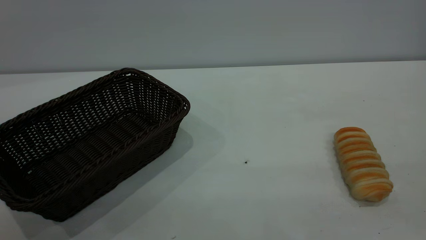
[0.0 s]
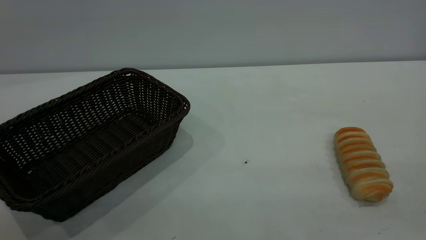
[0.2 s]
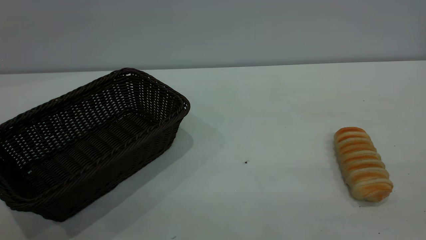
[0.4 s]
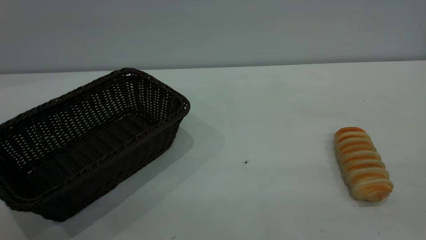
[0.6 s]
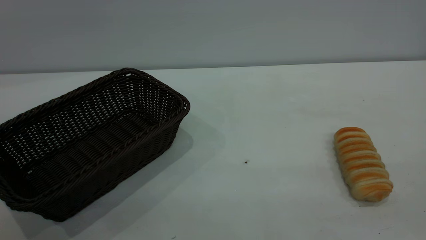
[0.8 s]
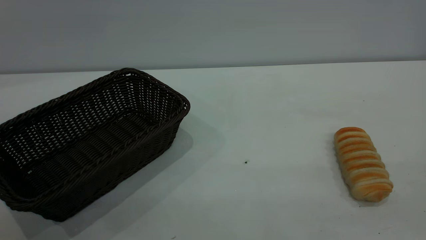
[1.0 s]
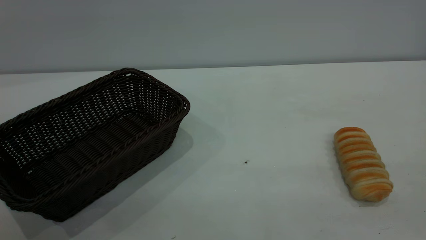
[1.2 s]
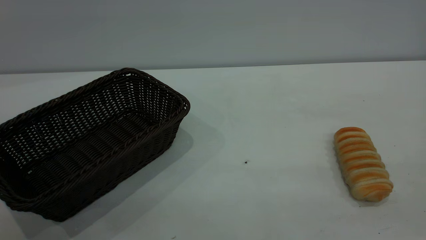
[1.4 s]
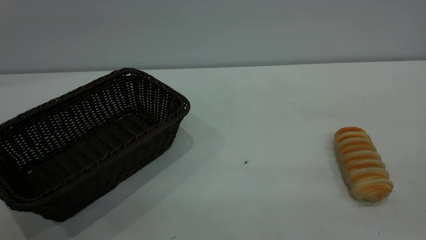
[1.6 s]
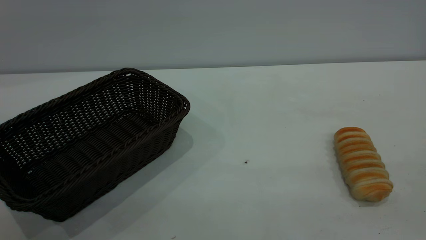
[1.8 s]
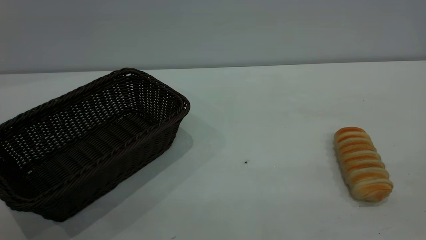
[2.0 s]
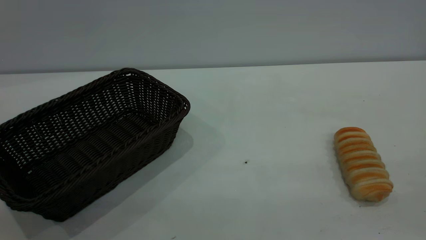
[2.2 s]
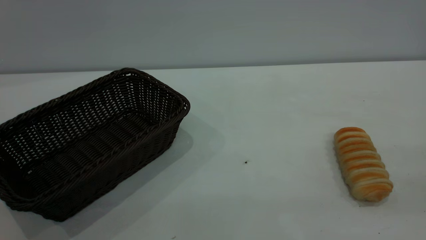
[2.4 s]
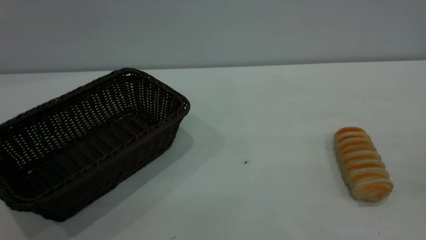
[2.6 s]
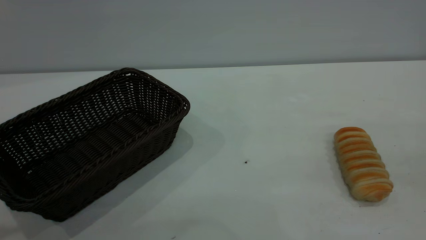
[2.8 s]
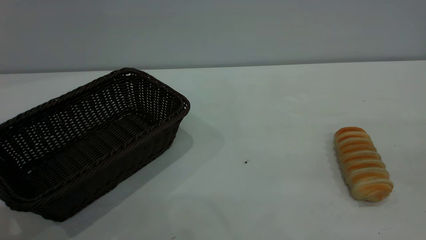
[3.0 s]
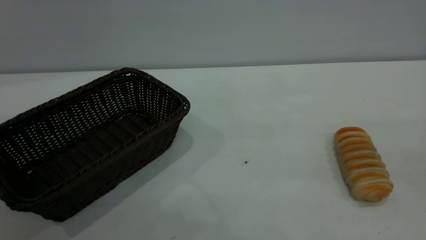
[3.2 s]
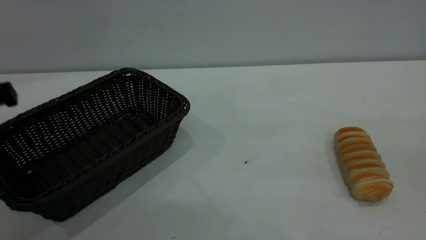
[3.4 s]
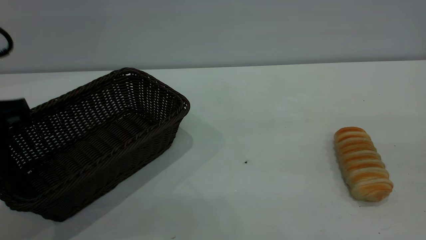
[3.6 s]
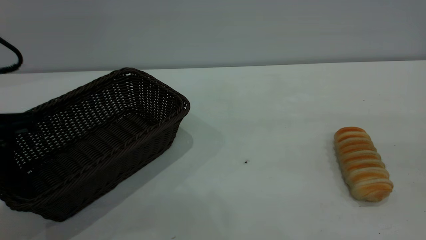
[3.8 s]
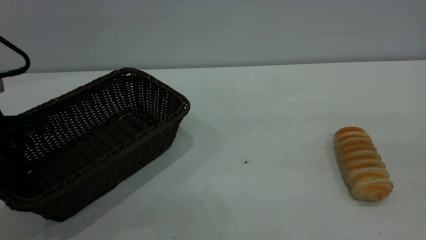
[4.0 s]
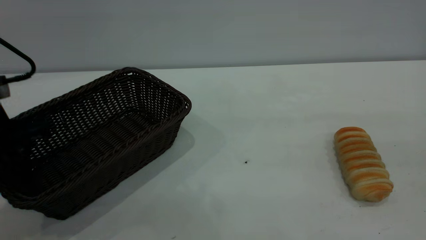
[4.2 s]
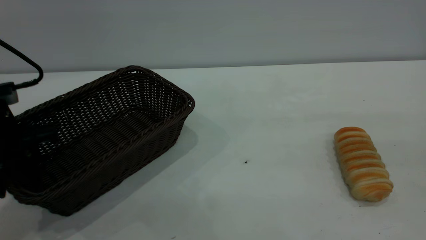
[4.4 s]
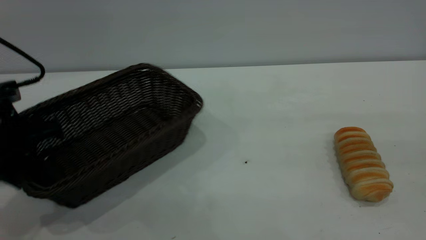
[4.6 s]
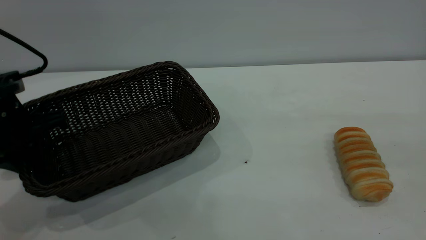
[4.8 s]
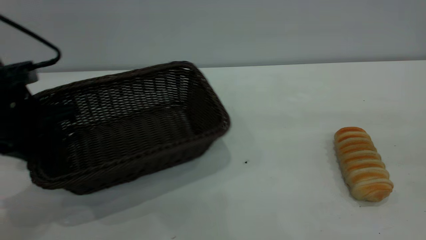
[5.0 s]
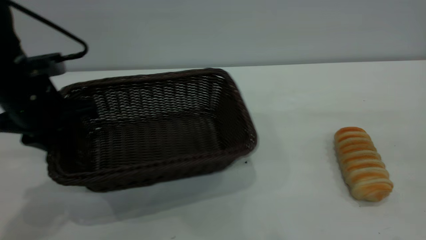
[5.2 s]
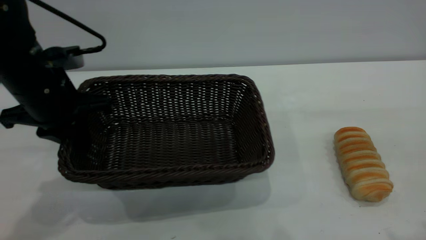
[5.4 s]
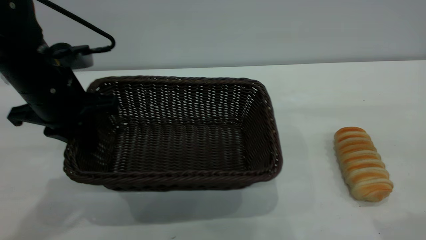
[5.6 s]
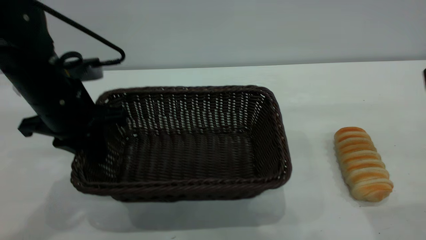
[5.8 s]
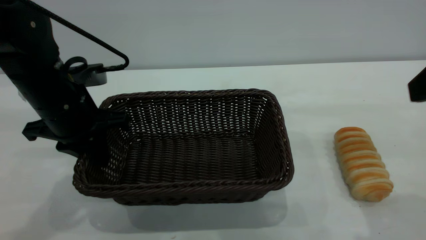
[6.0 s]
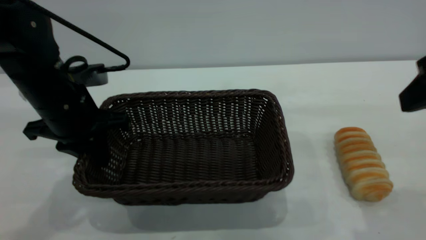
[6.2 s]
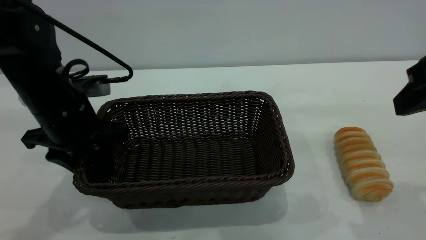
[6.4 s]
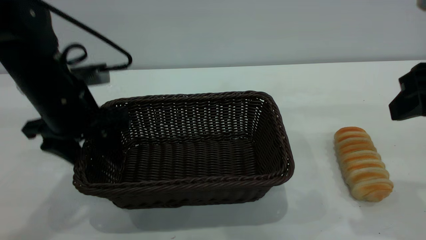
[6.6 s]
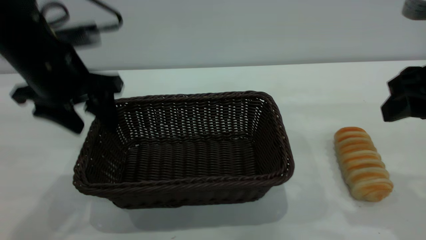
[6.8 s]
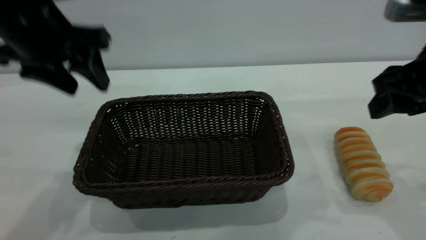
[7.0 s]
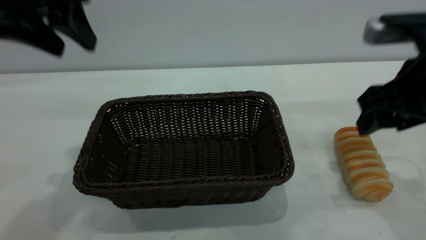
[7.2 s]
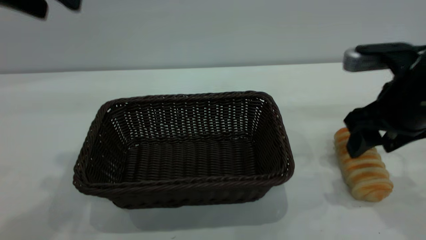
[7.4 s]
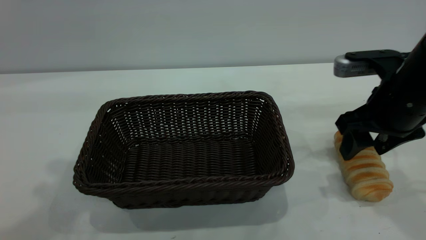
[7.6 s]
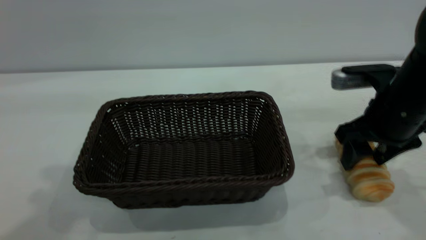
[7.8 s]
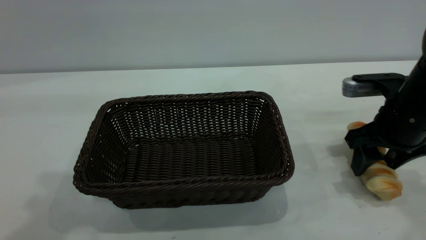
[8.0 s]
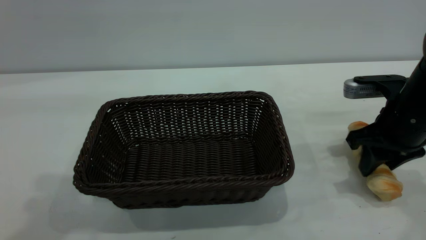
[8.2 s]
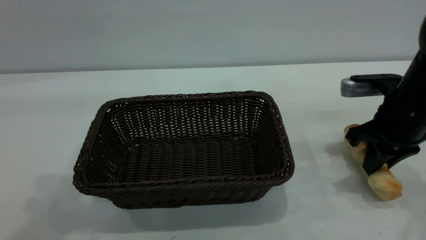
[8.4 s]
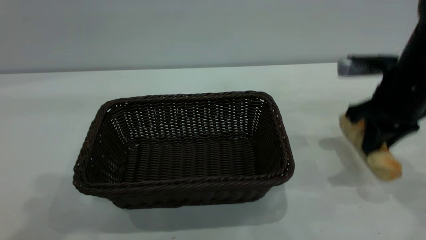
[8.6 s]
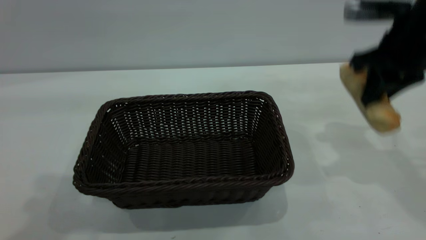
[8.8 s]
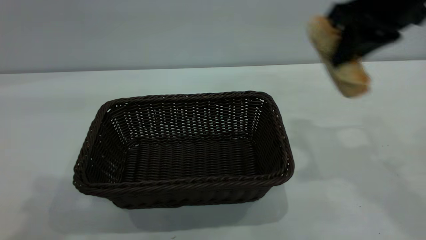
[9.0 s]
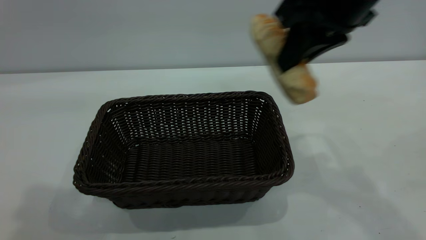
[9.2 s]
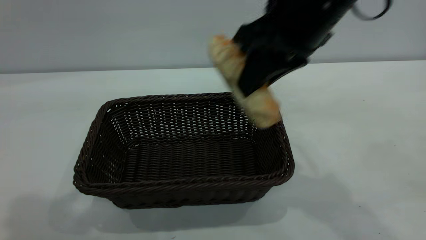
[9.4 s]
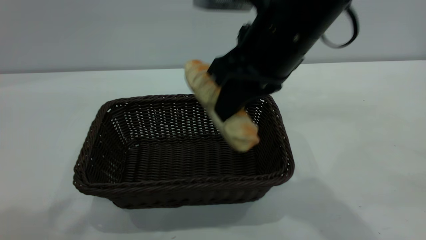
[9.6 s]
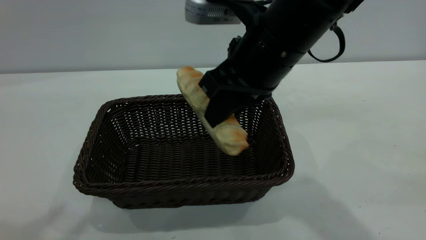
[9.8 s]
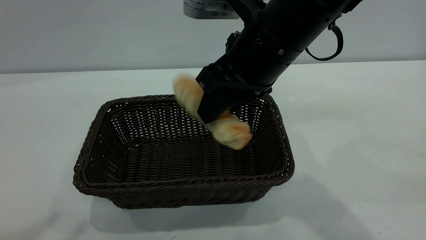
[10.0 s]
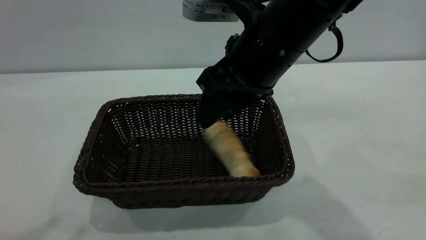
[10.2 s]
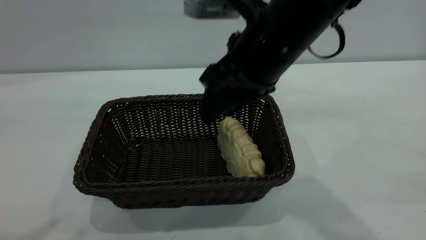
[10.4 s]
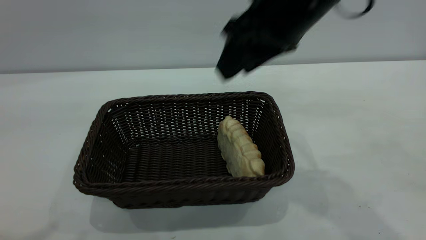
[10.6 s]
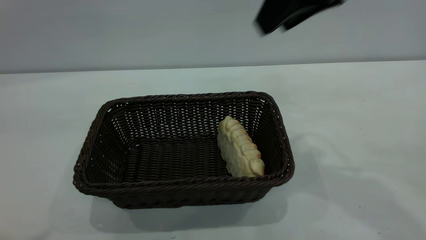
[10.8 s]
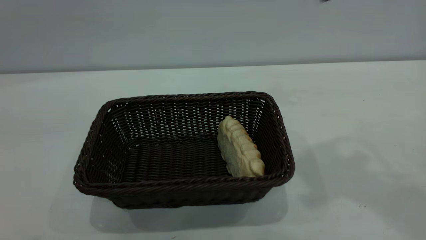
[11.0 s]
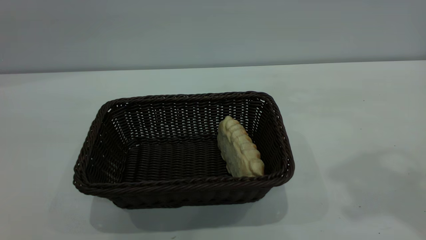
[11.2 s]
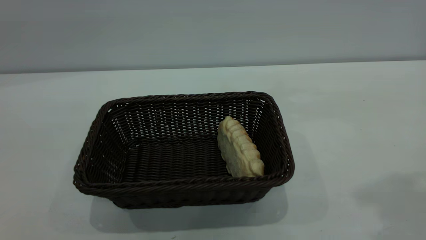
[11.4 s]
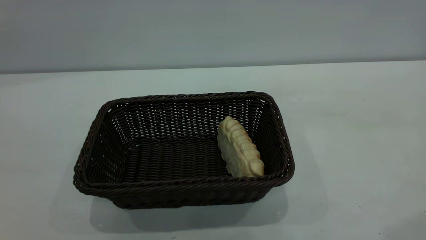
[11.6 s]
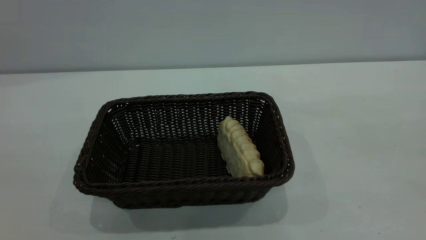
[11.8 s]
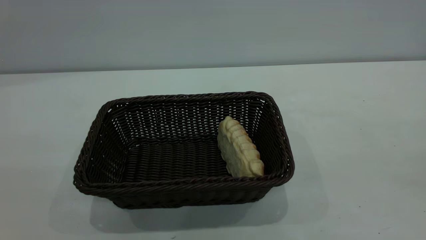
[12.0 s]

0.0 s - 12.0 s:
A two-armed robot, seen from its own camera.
Task of the whole recording: One hand grasps the black basket and places it in the middle of the table, while the other hand picks up the long bread and puts it into the black basket.
Step, 0.0 s - 7.0 s: Move the basket to the center of view.
Step, 9.0 s - 10.6 s: place the bread into the basket.
0.0 s - 1.6 s: Both grippers stay put.
3.0 s - 4.4 s: The left gripper travels downward and forward by some 15 cm.
4.4 s - 6.0 s: The right gripper moves forward and downward, approximately 10 cm. The left gripper travels to the right by approximately 10 cm, and closes its fingers.
6.0 s - 7.6 s: The right gripper goes some 15 cm downward and forward. The left gripper shifts roughly 25 cm upward, and opens its fingers.
7.6 s - 9.0 s: The right gripper is displaced upward by roughly 15 cm, and closes.
9.0 s - 10.4 s: The right gripper travels to the left by about 10 cm, and opens its fingers, while the left gripper goes some 10 cm backward and upward.
10.4 s - 12.0 s: The right gripper goes roughly 40 cm backward, to the right and upward. The left gripper is displaced backward by approximately 15 cm.

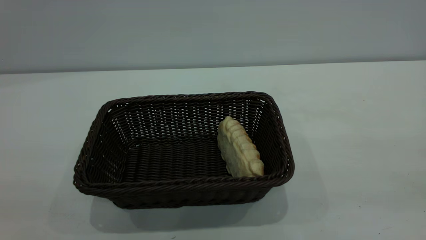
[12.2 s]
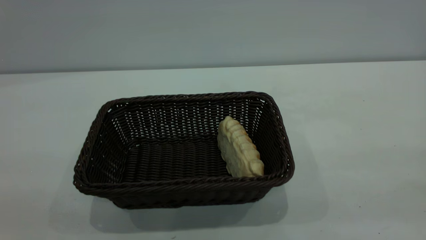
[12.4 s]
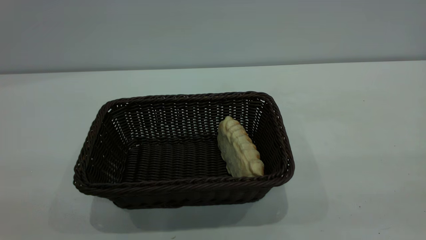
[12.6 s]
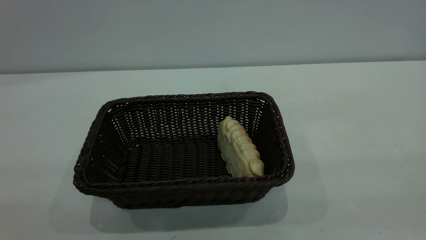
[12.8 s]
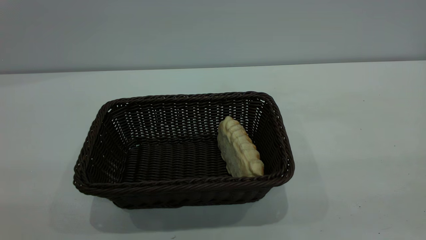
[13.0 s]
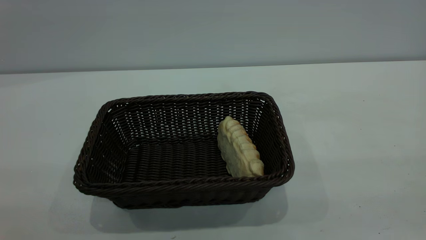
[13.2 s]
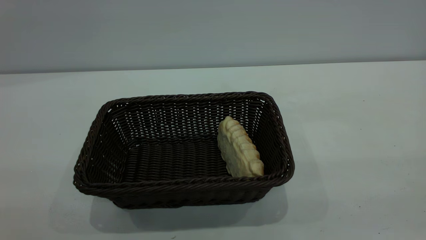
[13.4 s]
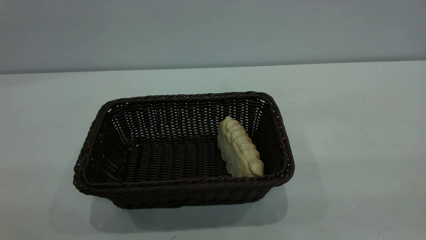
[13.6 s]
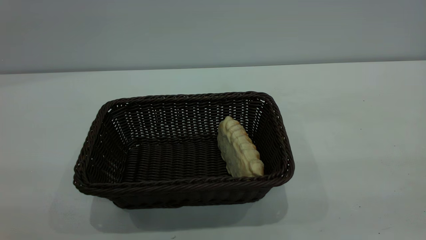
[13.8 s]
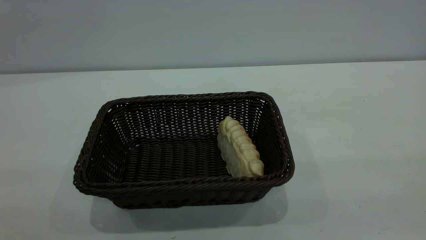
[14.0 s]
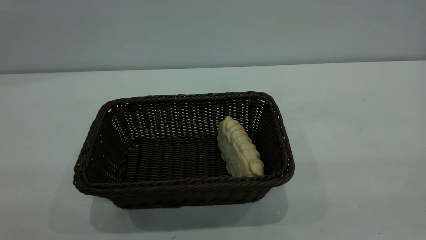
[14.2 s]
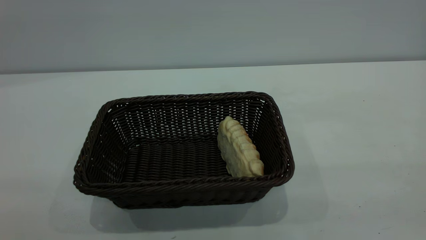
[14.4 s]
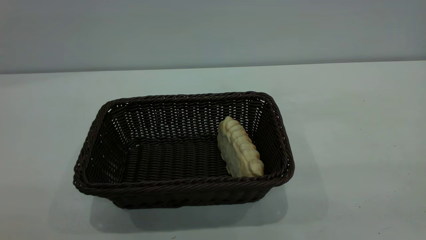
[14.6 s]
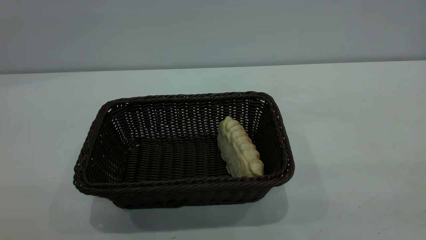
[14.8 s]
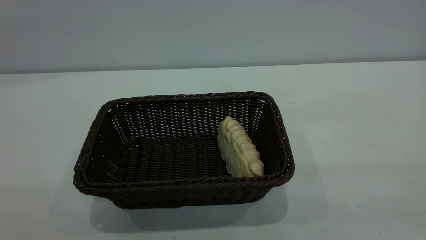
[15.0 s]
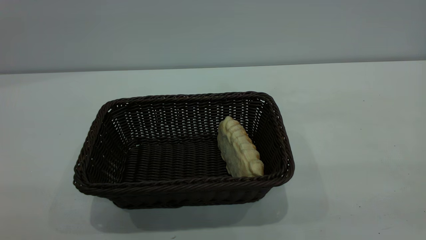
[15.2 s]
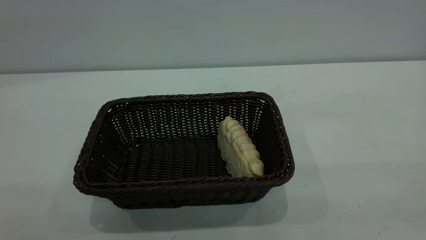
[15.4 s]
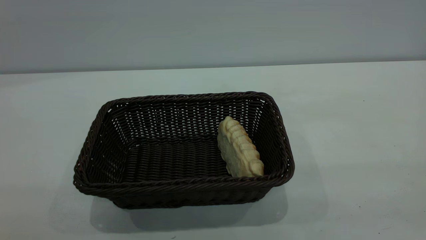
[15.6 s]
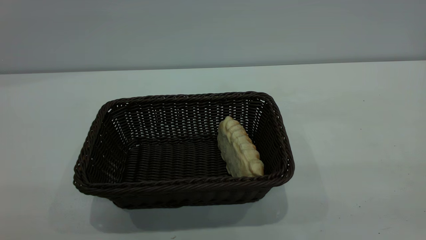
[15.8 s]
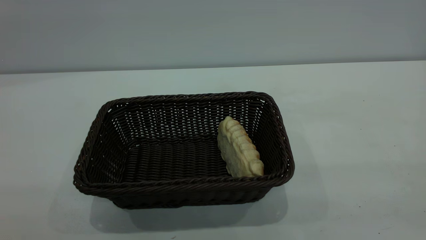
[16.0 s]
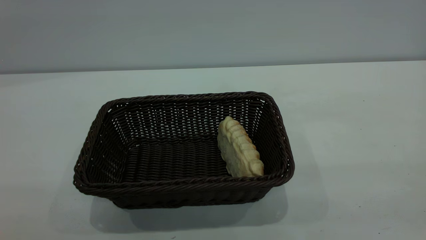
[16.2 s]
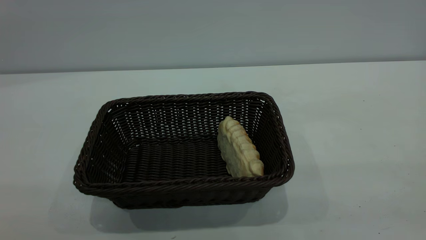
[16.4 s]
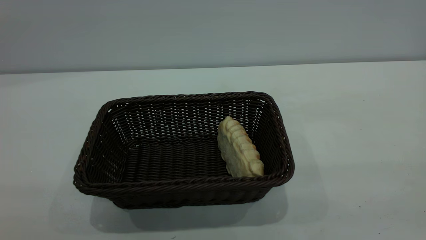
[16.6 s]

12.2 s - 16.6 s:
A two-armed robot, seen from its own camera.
Task of the whole recording: One hand grasps the black basket and places it in the middle of the table, while the other hand picks up the long bread and puts it into the black basket.
15.2 s - 16.6 s: The two grippers keep their place.
